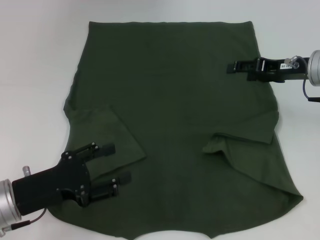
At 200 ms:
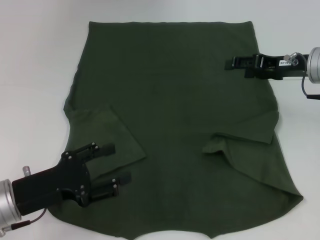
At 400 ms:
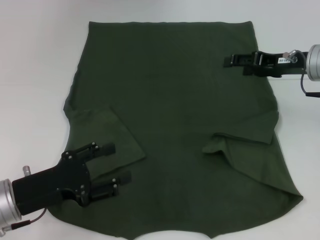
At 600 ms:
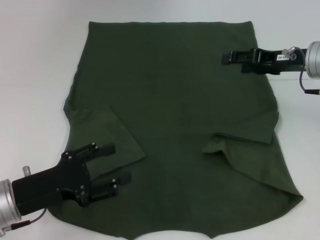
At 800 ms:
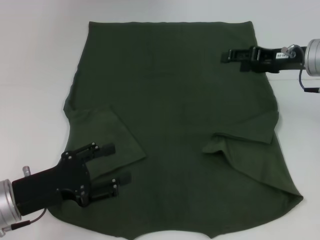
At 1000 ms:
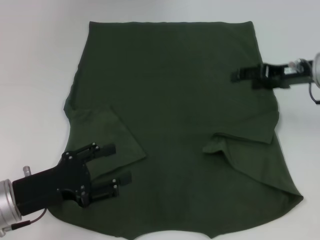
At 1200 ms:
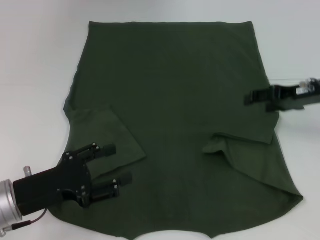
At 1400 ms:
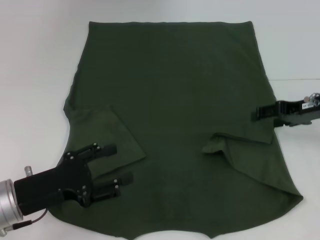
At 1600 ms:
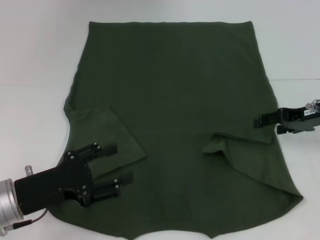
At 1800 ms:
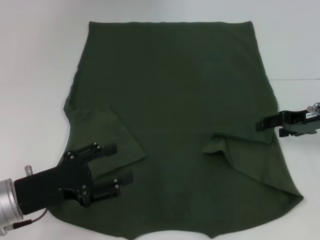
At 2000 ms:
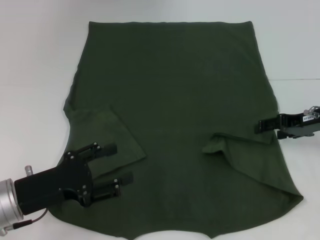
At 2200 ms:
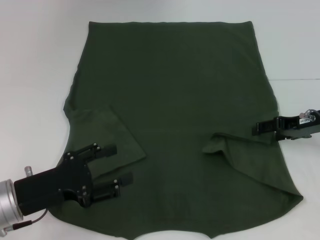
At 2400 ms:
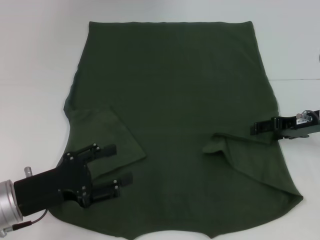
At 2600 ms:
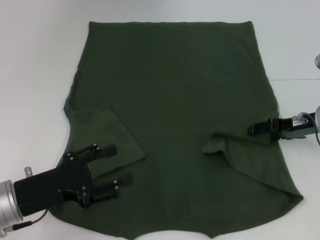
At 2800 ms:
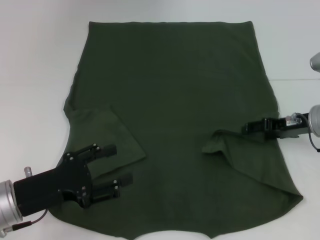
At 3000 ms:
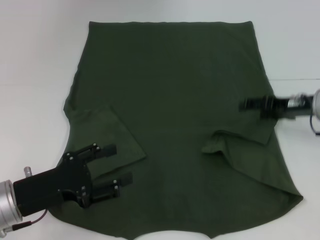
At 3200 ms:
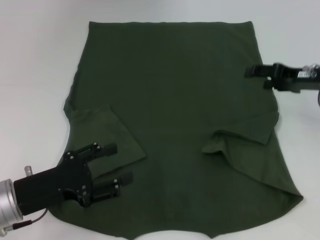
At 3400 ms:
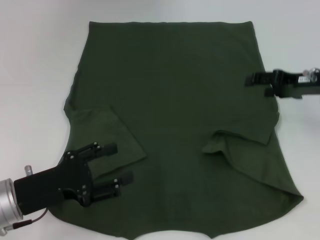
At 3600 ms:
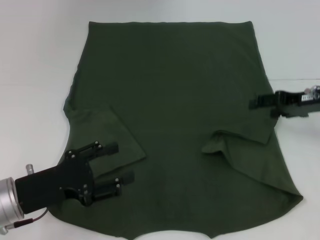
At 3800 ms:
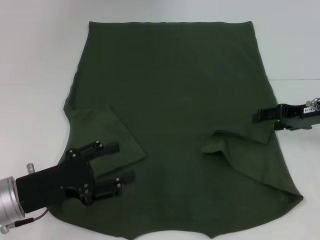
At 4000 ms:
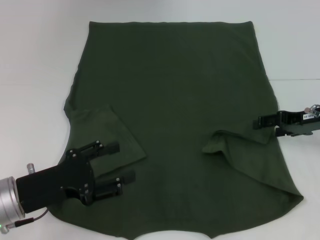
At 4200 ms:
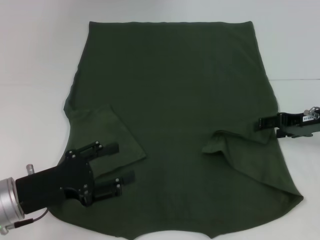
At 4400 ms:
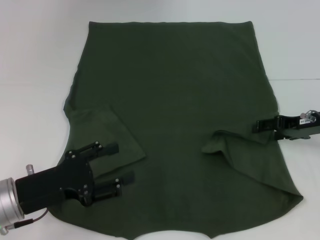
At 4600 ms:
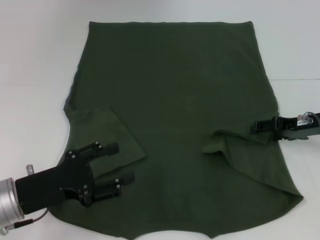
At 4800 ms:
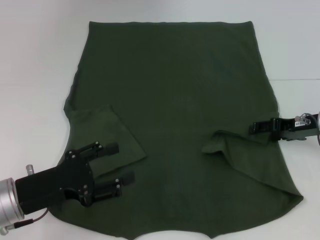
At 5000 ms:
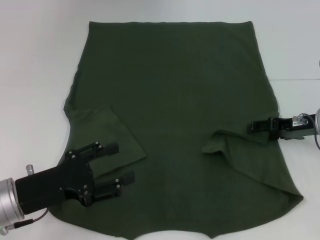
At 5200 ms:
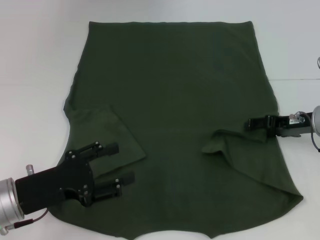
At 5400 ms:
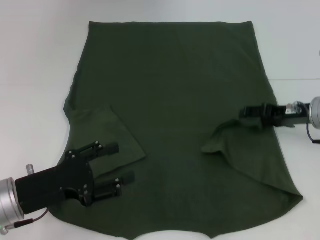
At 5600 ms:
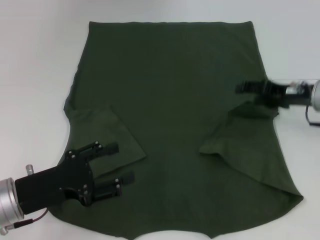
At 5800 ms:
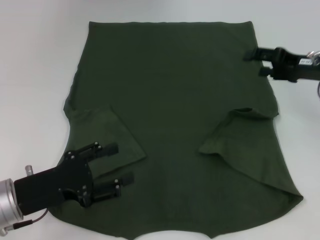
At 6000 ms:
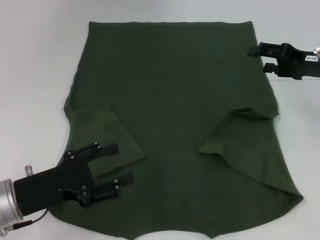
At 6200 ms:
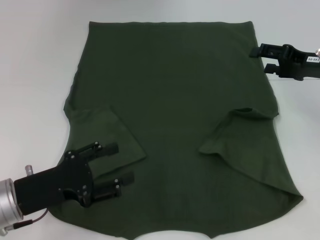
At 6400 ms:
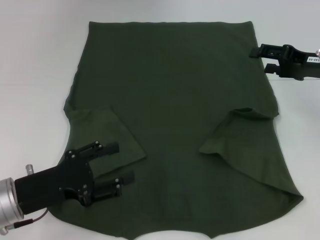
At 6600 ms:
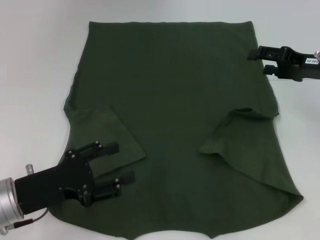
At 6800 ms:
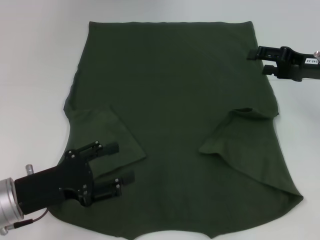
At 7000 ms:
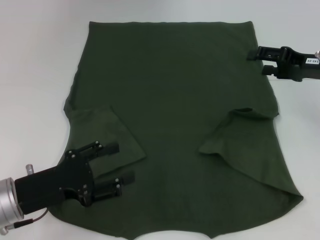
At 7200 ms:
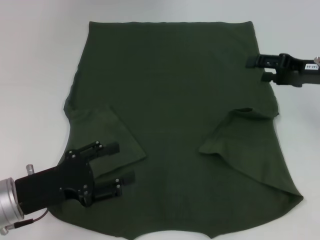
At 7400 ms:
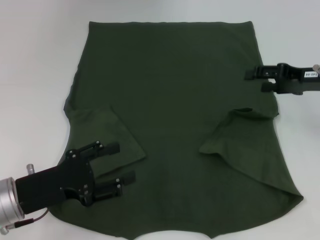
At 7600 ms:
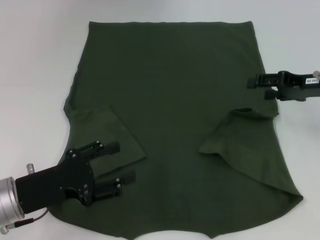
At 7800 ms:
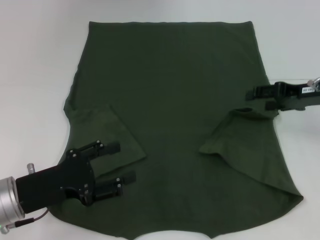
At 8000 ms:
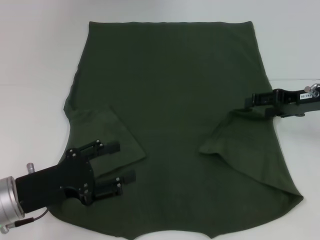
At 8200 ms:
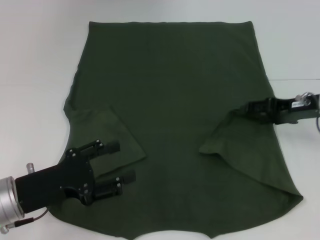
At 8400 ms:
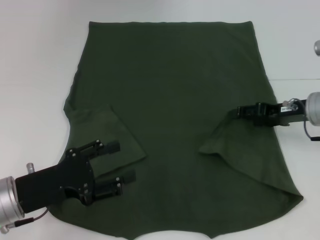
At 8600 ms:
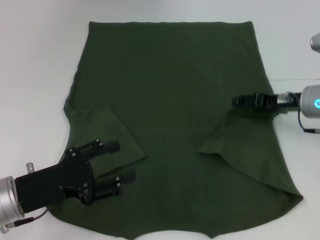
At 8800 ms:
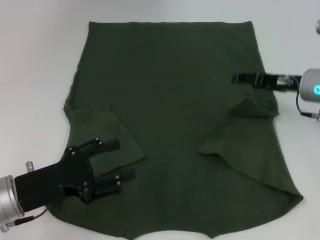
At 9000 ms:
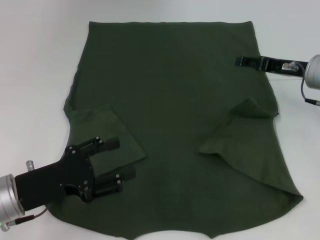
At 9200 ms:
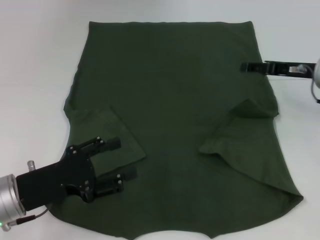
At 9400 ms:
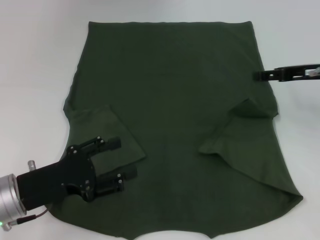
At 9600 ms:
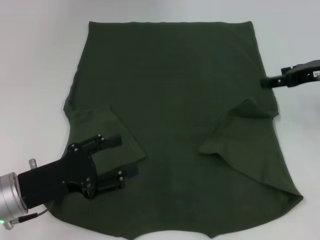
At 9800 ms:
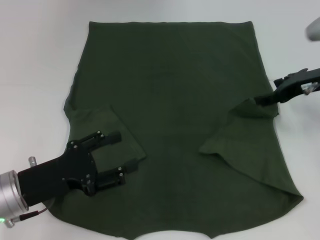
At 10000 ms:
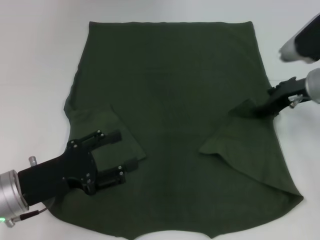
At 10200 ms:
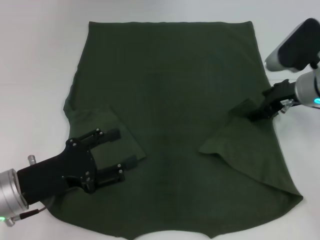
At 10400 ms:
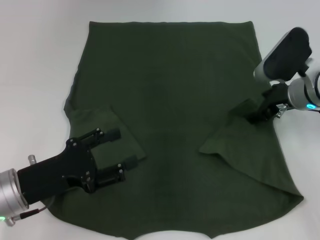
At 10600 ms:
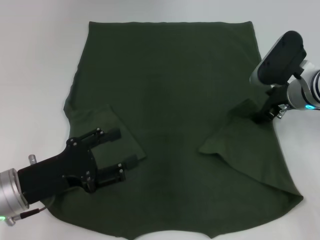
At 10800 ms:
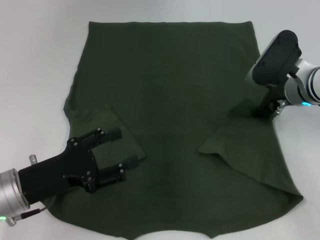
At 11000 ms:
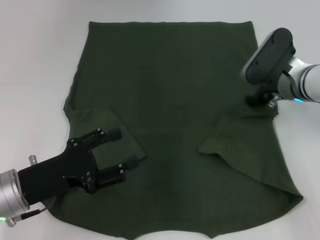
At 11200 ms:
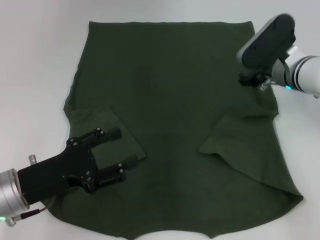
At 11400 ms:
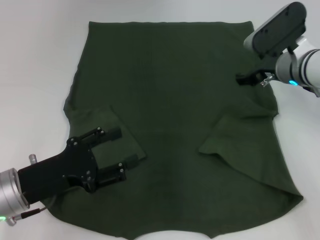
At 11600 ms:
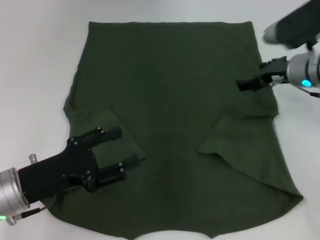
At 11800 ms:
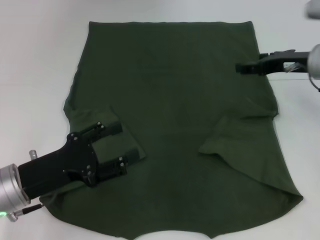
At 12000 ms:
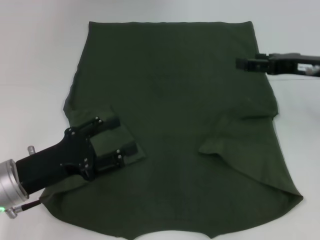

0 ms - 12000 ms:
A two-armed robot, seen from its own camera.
Step, 0 ms - 8600 ms: Fold the bottom right sleeve with your right hand.
0 ms - 1600 ms: The right gripper changes place by approximately 5 cm.
1600 ms - 3000 ms: The grippers make only small movements.
3000 ms - 4400 ms: The grippers move only a little.
4400 ms - 6000 ms: The right gripper moves upward, some 5 cm.
6000 ms - 7600 ms: The grippers move only a little.
10400 ms - 12000 ms: The right gripper moves to the right, some 5 cm.

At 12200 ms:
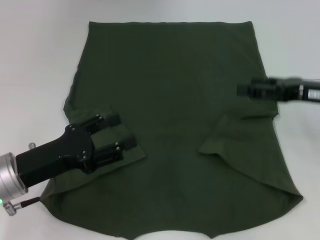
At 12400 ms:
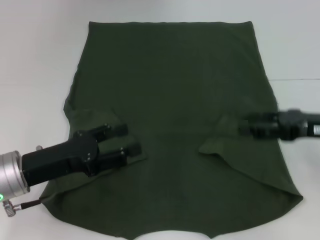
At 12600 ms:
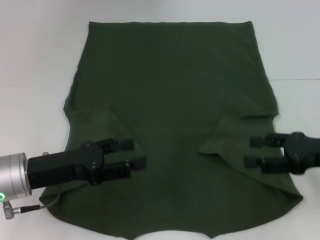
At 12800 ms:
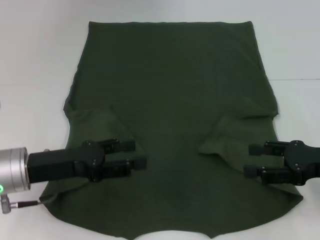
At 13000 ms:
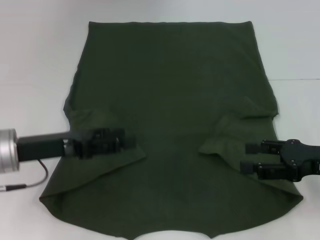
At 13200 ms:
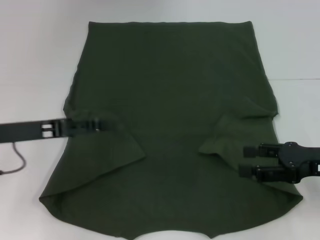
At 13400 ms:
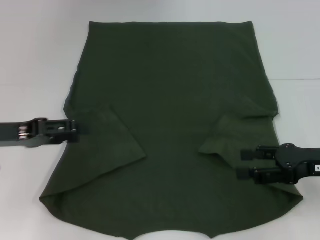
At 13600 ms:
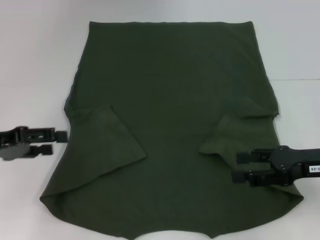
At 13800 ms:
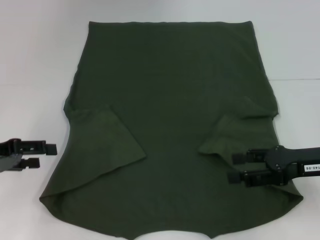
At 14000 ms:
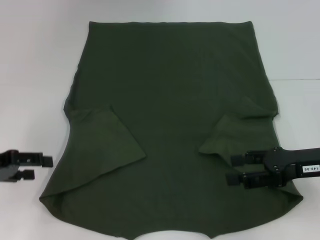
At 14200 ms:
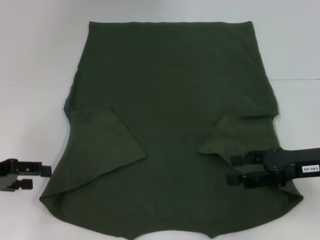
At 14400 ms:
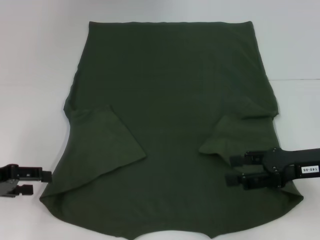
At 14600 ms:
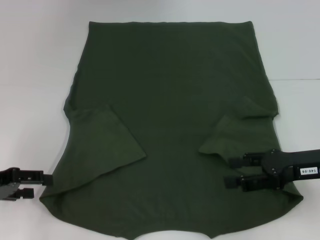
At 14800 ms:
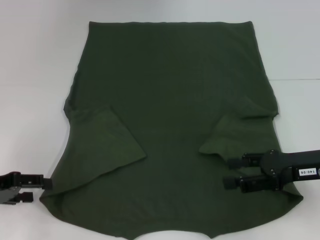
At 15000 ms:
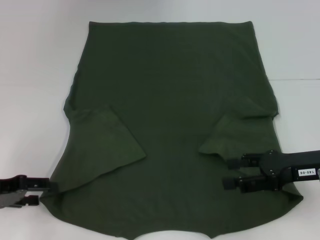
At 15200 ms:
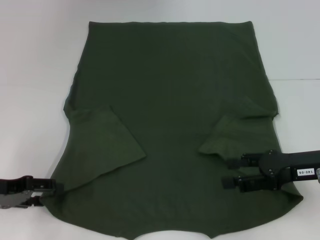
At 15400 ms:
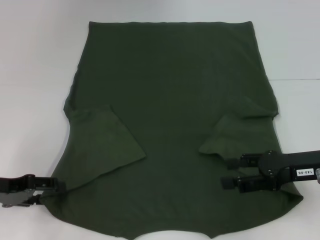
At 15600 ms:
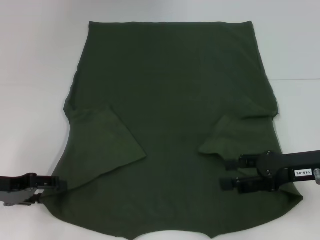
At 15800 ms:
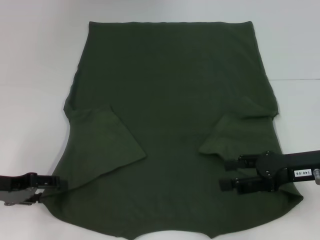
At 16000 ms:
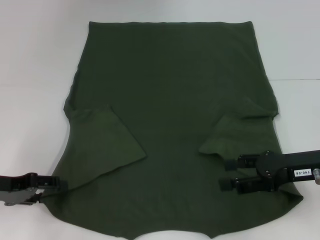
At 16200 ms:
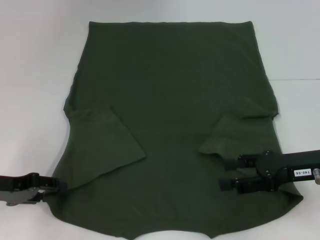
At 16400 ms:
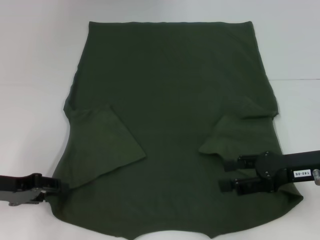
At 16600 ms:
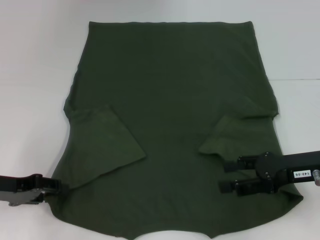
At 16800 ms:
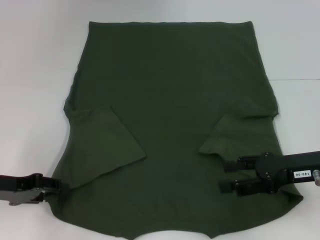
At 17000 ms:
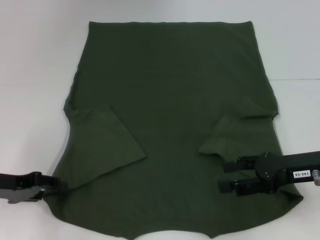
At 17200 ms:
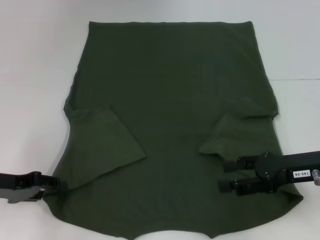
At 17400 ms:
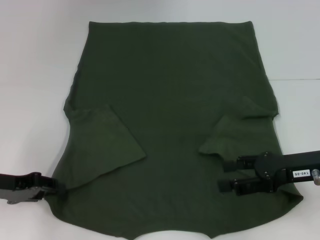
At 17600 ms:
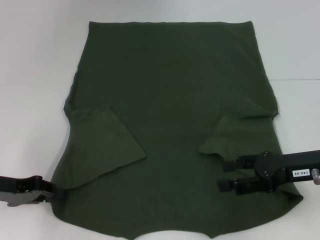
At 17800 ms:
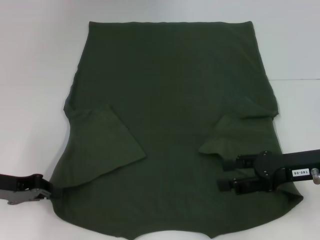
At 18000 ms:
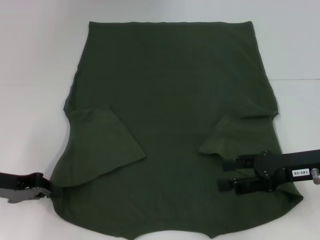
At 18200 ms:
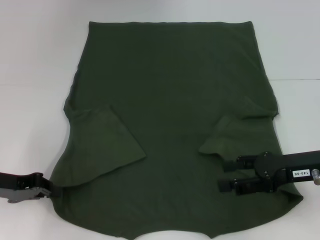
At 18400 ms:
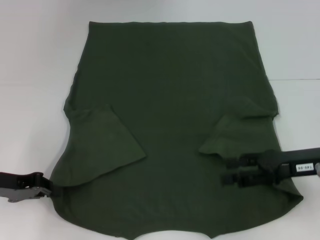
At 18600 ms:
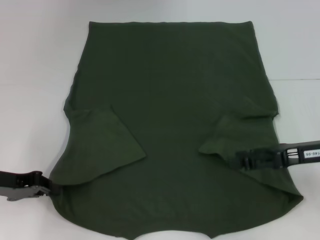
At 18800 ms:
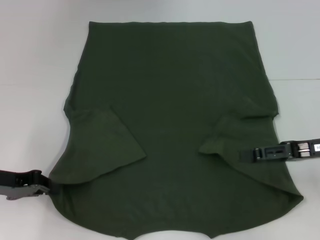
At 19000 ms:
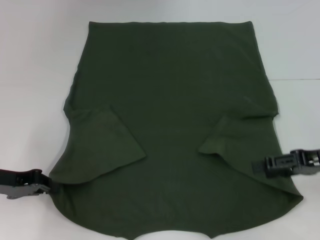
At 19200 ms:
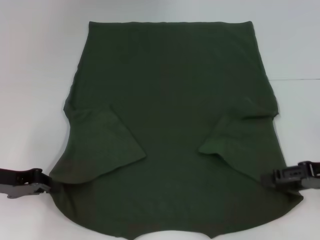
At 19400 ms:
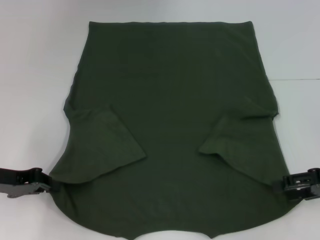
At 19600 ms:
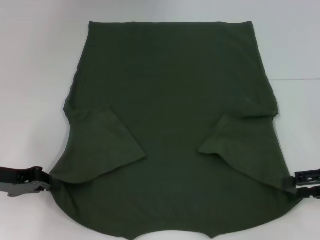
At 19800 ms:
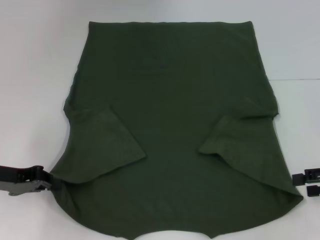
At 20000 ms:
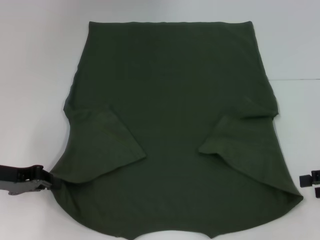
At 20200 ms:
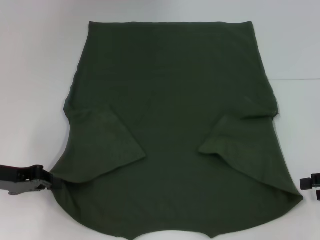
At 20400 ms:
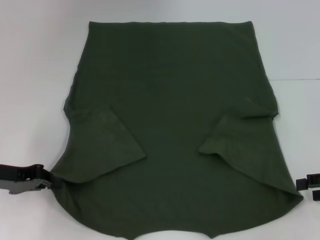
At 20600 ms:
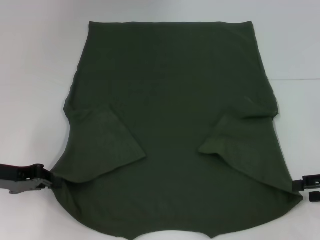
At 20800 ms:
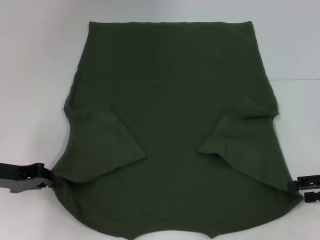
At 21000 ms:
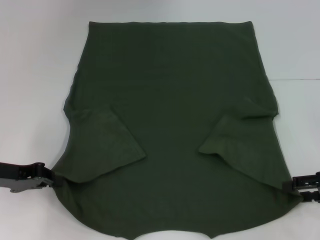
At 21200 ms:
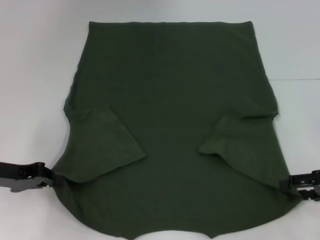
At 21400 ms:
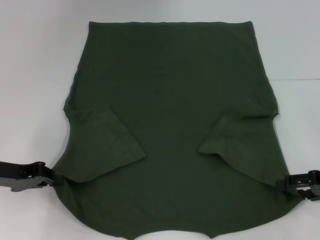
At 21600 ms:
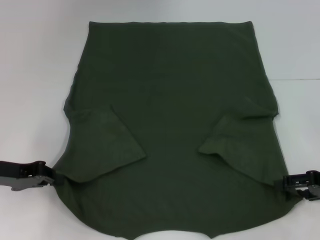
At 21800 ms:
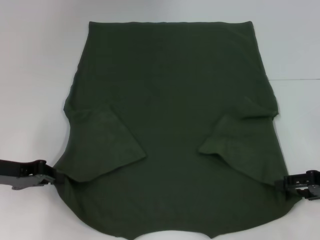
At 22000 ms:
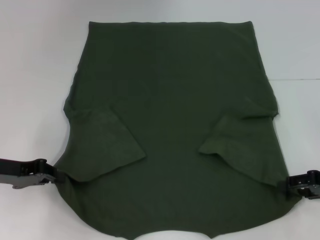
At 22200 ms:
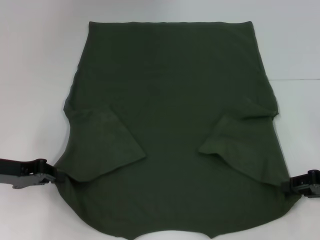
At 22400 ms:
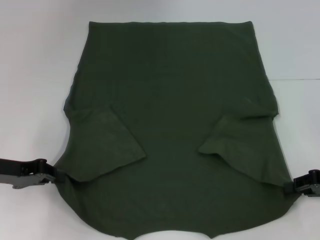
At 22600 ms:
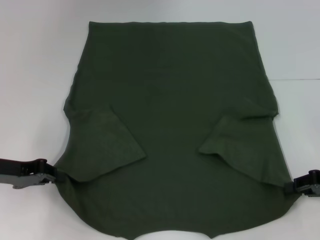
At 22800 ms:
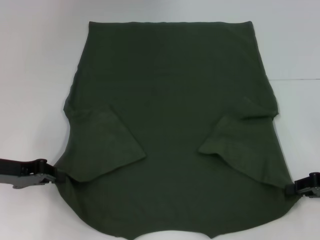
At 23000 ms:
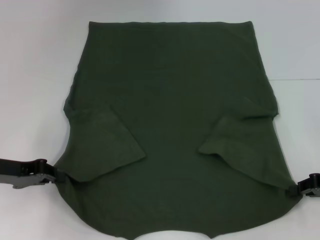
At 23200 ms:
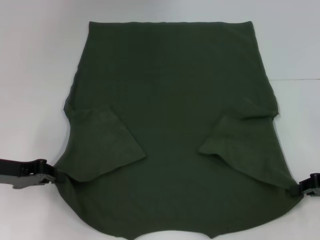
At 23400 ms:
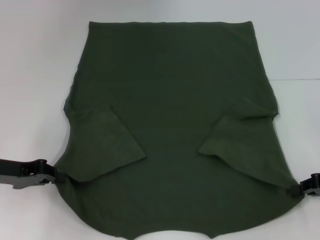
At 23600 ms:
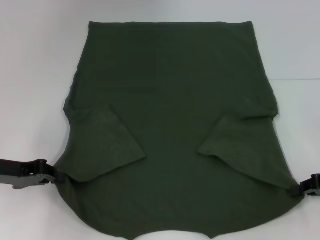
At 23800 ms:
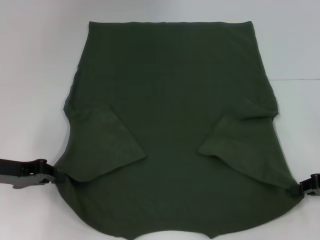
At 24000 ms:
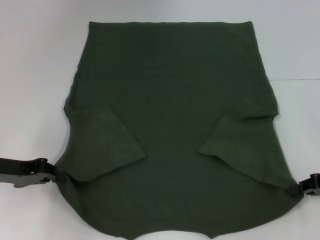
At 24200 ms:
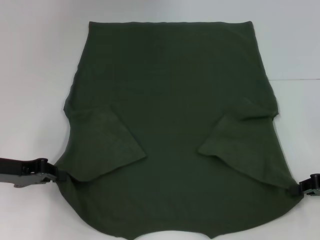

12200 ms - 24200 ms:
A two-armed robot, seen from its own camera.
Step, 12200 ms - 17800 ms: Grab the bottom left corner with your left hand.
Step, 18000 ms - 22400 ms: Grab the bottom right corner with your right hand.
12200 ms - 13800 ms: The right gripper goes approximately 5 cm backward. Meanwhile the left gripper shifts some 10 cm to the left.
13800 ms - 15200 ms: There are only small adjustments of the grippers.
15200 ms - 16600 ms: The two grippers keep their place.
16600 ms - 18200 ms: The left gripper closes its fingers.
18200 ms - 19800 ms: The right gripper travels to the right by some 10 cm.
19800 ms - 21200 ms: The grippers move only a little.
21200 ms - 22600 ms: The right gripper closes up.
22600 ms - 24200 ms: The grippers make only small movements.
